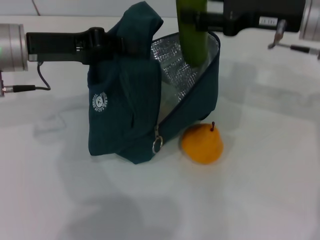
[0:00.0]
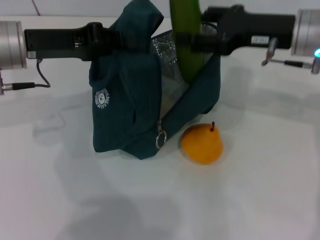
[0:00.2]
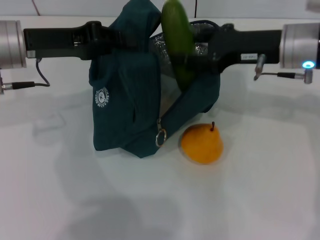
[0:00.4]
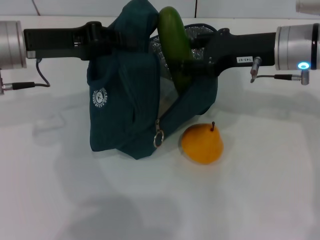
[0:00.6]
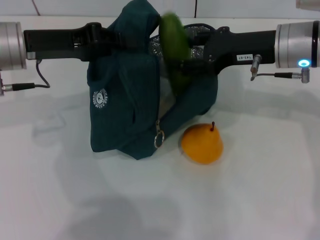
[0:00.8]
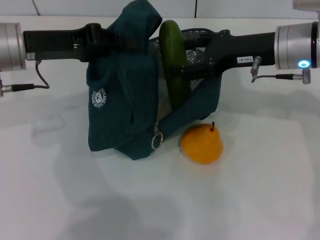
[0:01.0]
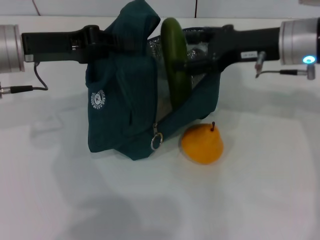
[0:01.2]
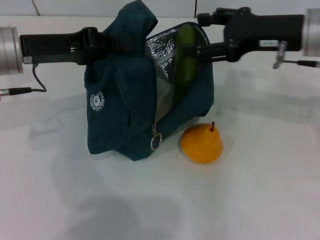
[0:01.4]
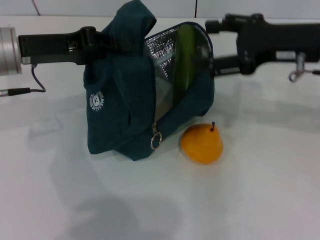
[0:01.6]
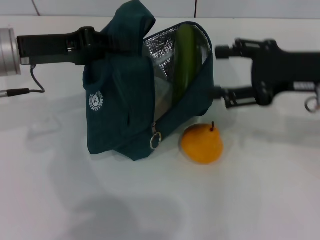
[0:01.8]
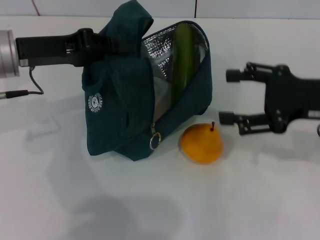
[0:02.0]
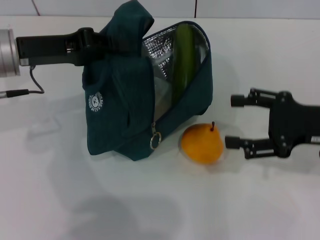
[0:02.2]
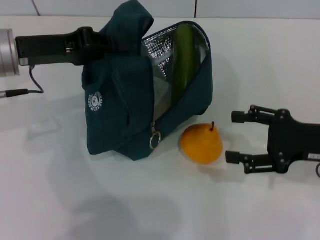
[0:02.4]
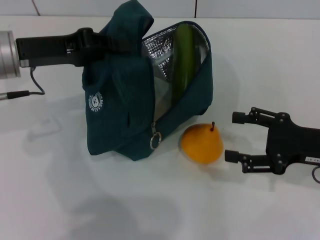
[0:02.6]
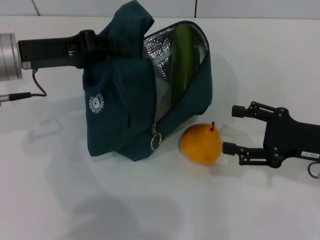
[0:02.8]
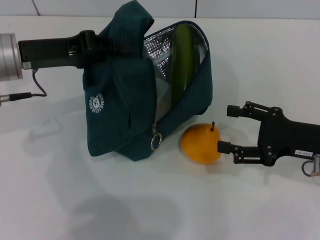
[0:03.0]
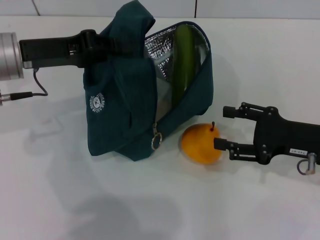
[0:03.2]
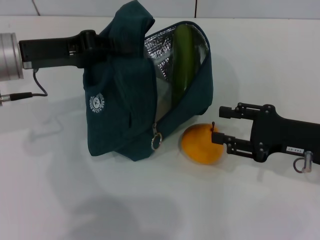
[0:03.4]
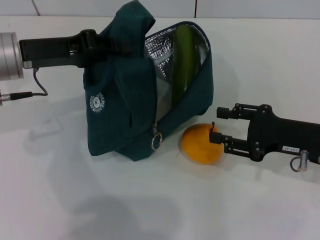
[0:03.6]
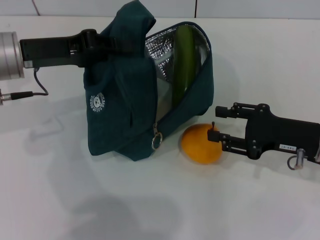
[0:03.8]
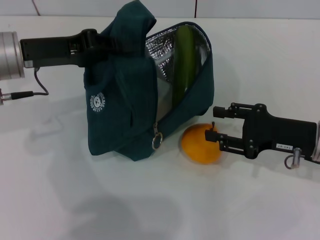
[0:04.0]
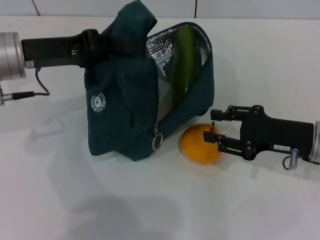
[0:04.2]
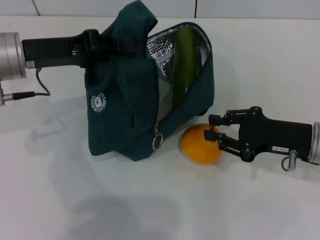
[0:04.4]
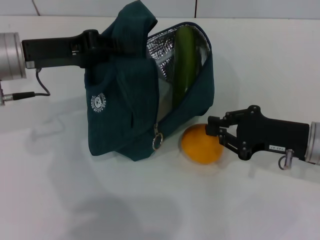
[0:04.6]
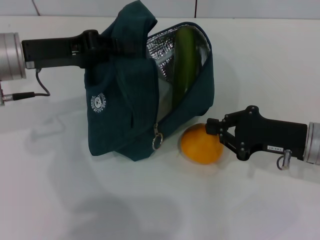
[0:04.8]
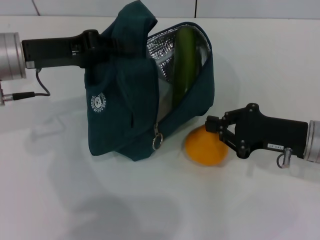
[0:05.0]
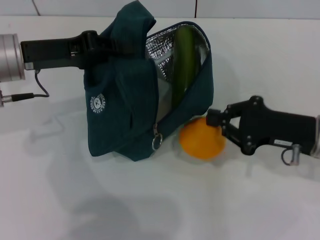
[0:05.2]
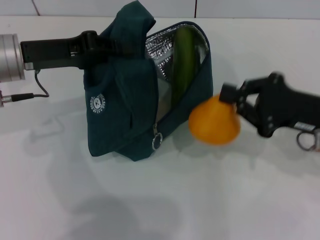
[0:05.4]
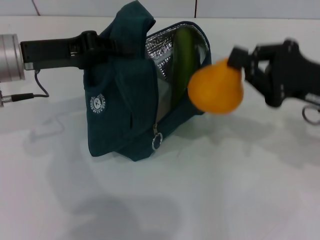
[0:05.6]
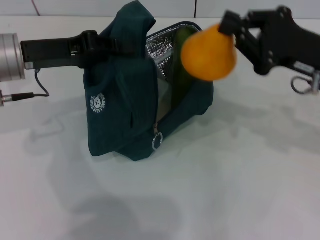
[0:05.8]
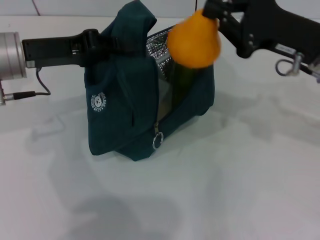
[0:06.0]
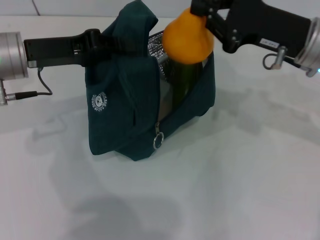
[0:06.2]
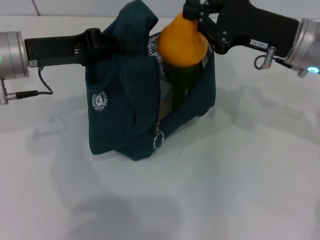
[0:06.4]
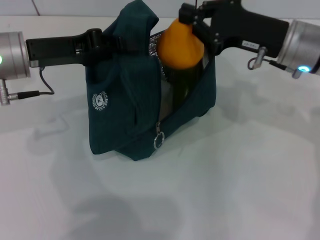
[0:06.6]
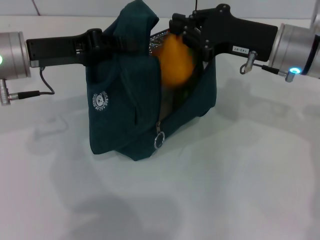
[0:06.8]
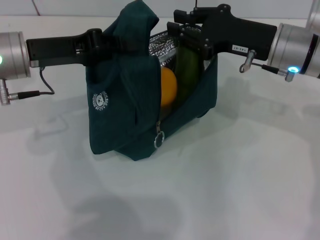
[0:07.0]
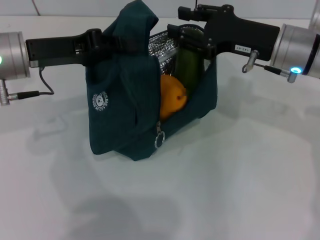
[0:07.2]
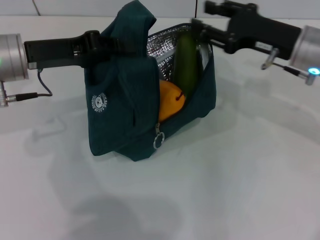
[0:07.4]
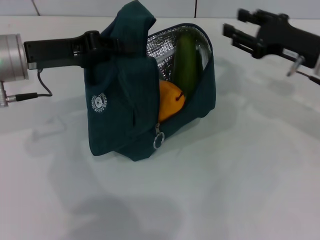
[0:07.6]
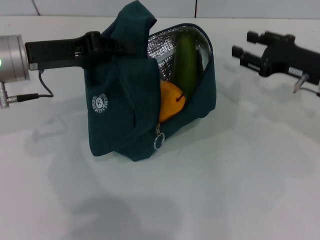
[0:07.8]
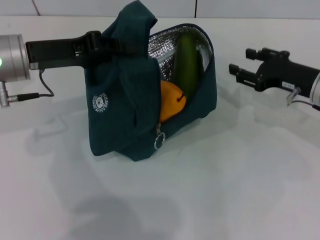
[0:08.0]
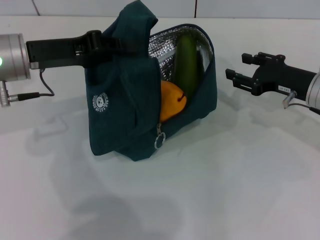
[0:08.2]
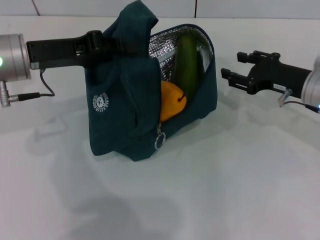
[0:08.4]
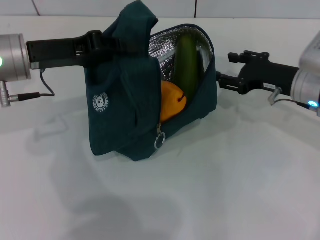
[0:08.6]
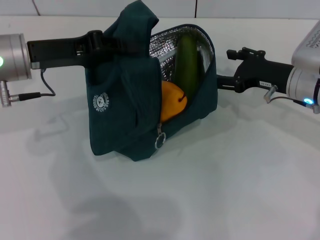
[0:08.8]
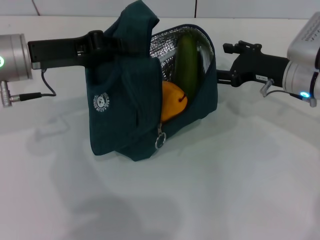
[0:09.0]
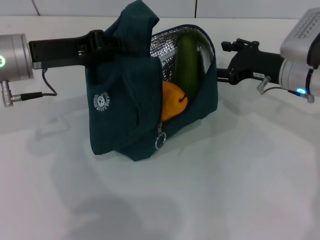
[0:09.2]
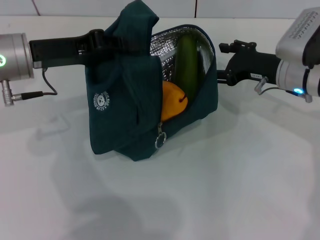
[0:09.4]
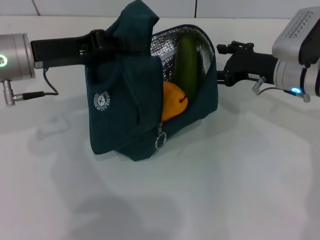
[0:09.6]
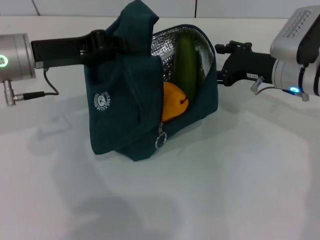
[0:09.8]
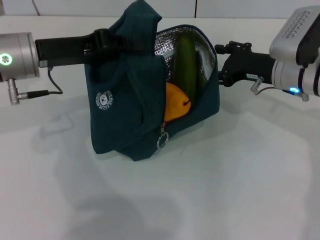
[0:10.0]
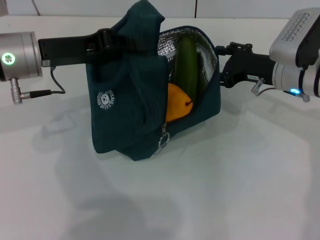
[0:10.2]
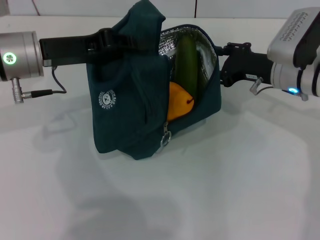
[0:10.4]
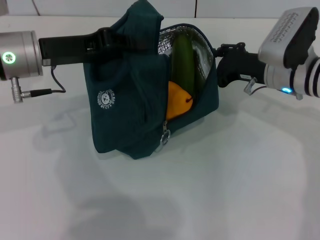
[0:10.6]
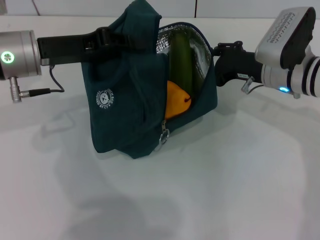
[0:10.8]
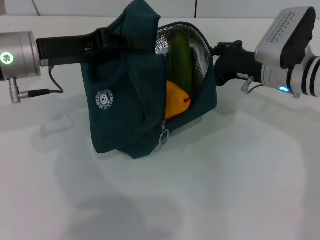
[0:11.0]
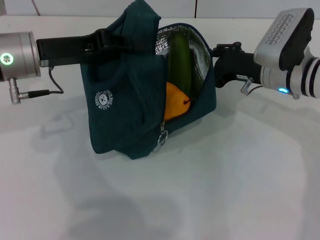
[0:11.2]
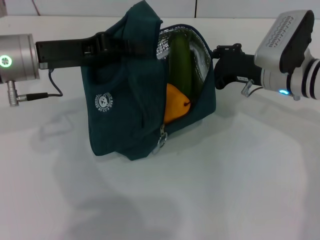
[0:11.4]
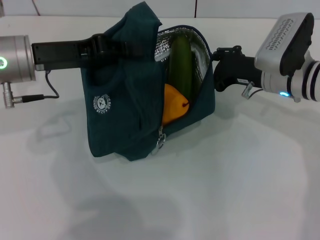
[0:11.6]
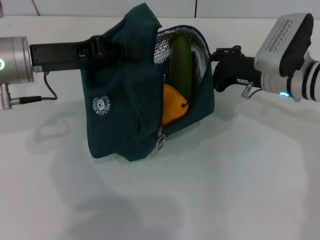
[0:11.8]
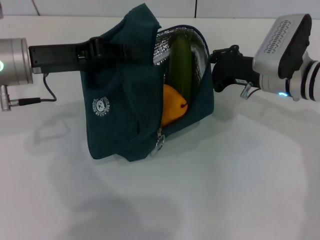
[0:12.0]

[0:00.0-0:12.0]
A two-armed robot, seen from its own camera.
Step, 0:01.8 to 0:04.6: Grab the pear with your right hand.
Step, 0:04.8 to 0:07.2: Place the pear into the lunch bag with your right hand.
0:00.0 to 0:01.6: The grippers stay close to where they were, moving slightly.
0:01.6 to 0:03.0: The right gripper shifts approximately 15 cm downward and backward.
0:03.0 to 0:04.4: The right gripper closes.
0:04.4 to 0:06.0: The right gripper is displaced upward and forward by some 10 cm, and closes.
0:06.0 to 0:07.6: The right gripper ends up approximately 5 cm from where it was, and opens up.
0:07.6 to 0:09.0: The grippers move only a little.
0:09.0 to 0:10.4: There are only small adjustments of the grippers.
0:10.4 to 0:12.0: The right gripper closes.

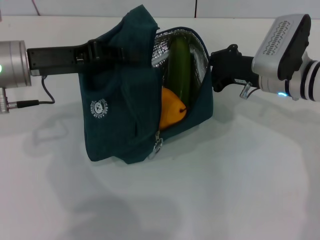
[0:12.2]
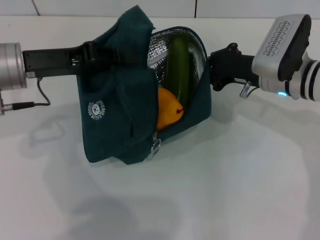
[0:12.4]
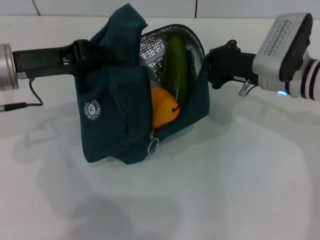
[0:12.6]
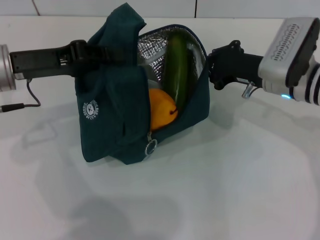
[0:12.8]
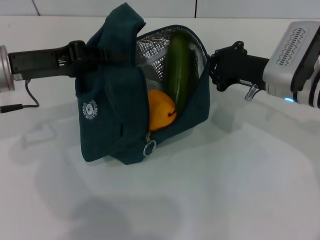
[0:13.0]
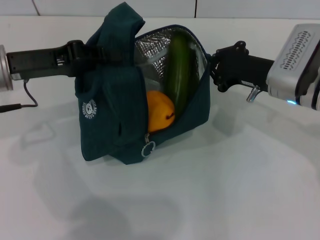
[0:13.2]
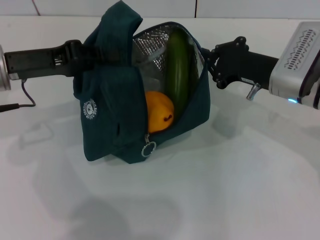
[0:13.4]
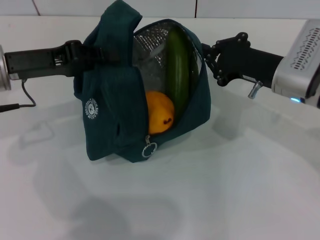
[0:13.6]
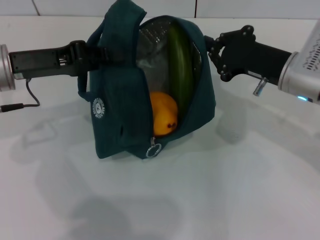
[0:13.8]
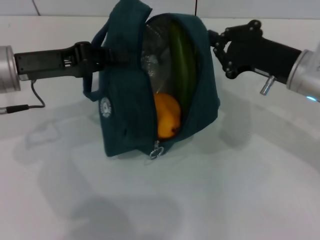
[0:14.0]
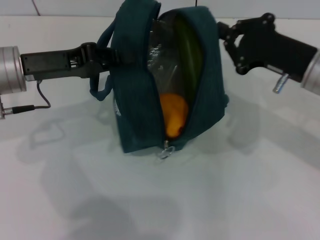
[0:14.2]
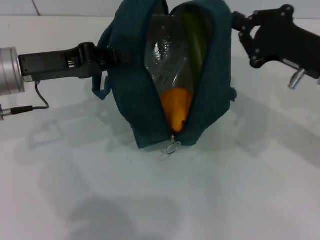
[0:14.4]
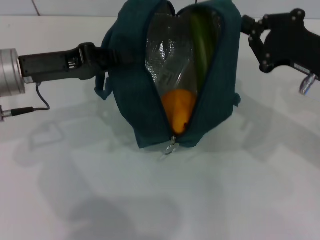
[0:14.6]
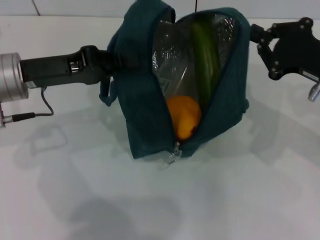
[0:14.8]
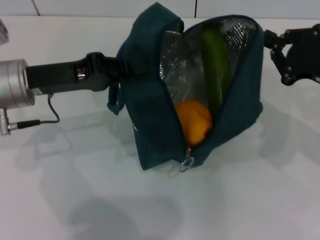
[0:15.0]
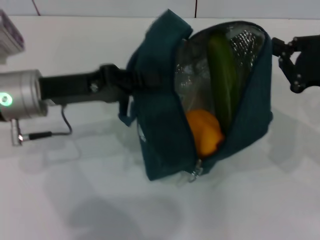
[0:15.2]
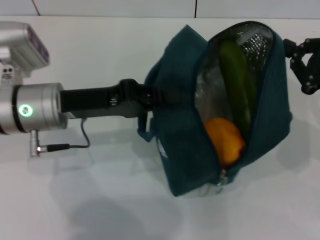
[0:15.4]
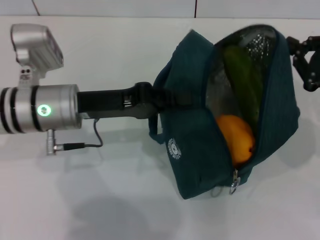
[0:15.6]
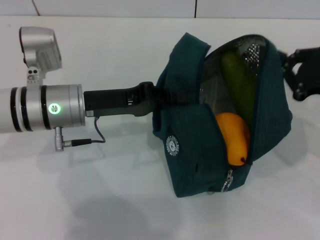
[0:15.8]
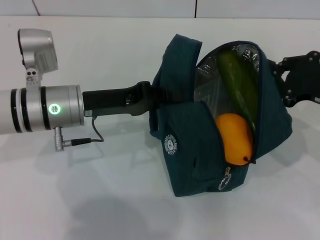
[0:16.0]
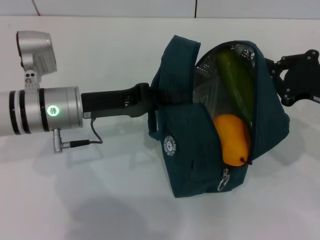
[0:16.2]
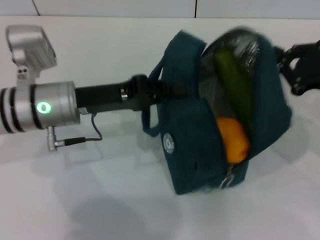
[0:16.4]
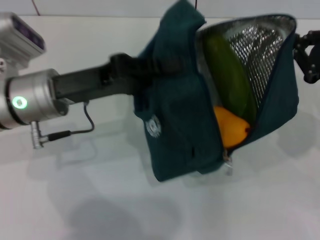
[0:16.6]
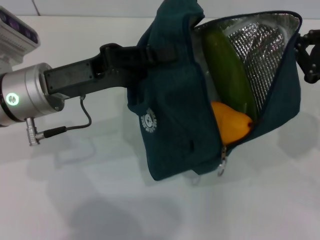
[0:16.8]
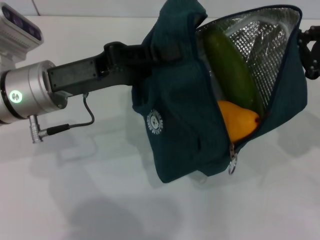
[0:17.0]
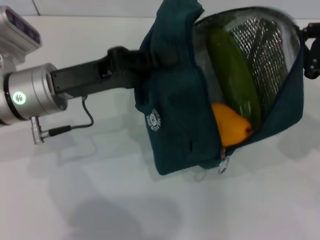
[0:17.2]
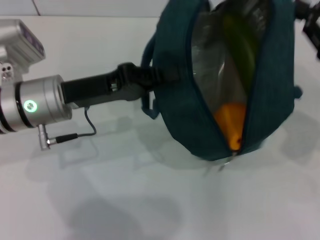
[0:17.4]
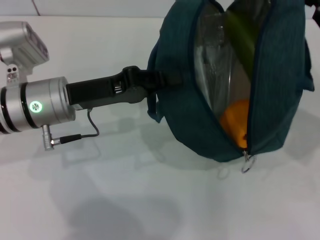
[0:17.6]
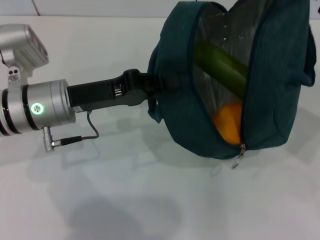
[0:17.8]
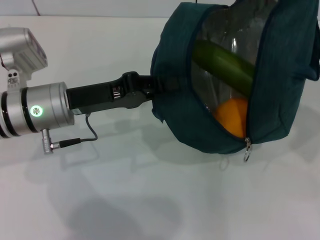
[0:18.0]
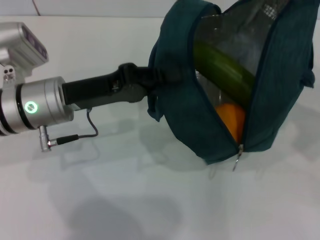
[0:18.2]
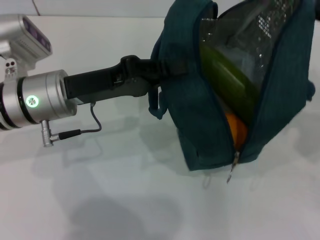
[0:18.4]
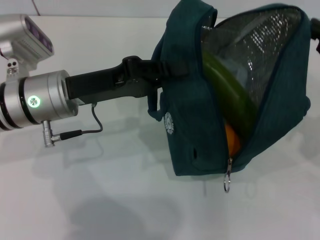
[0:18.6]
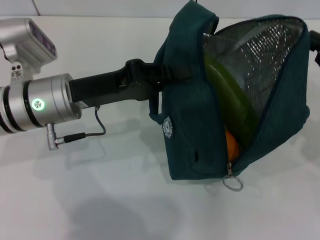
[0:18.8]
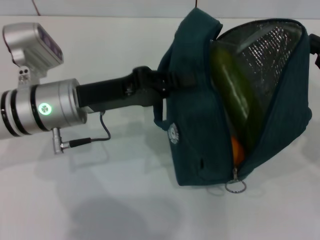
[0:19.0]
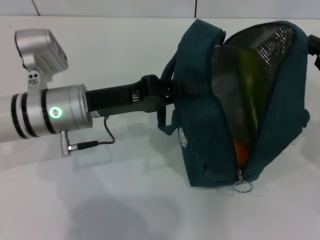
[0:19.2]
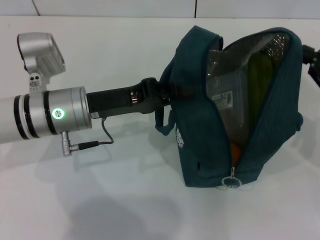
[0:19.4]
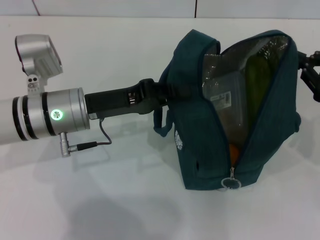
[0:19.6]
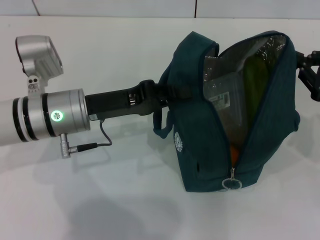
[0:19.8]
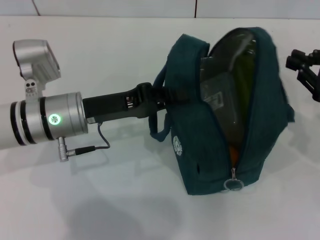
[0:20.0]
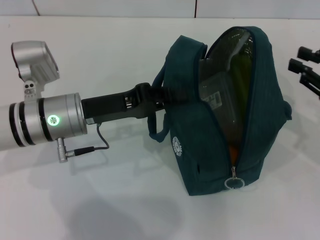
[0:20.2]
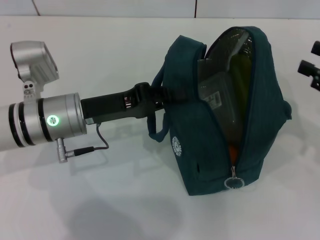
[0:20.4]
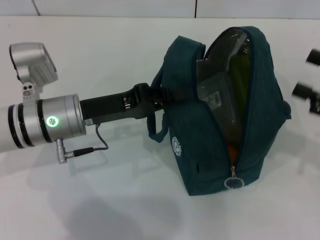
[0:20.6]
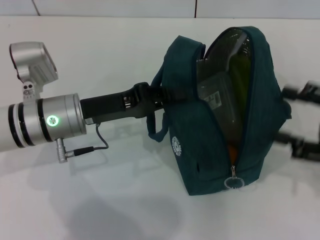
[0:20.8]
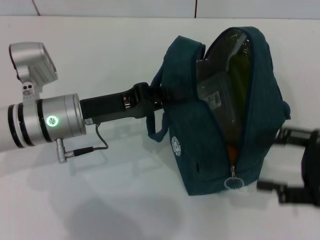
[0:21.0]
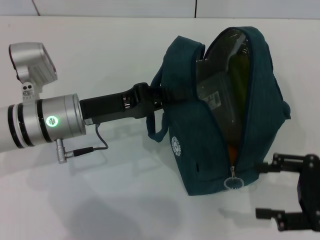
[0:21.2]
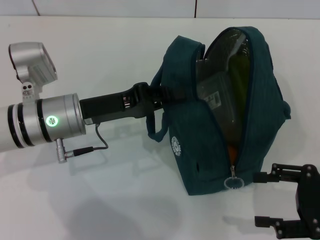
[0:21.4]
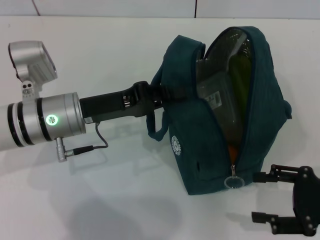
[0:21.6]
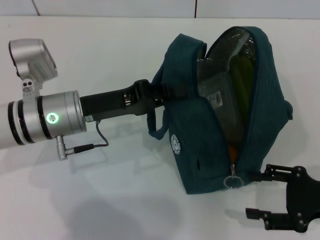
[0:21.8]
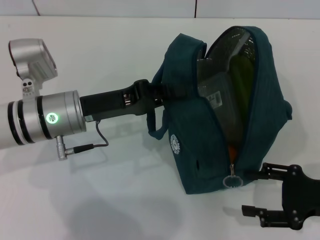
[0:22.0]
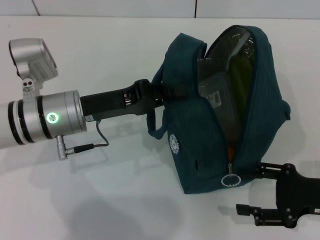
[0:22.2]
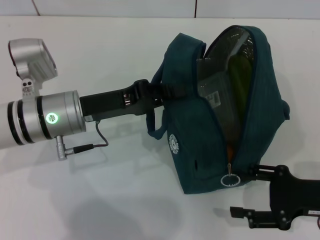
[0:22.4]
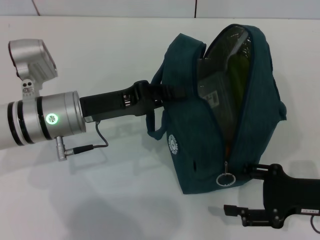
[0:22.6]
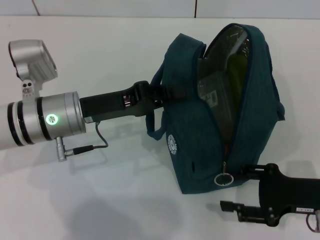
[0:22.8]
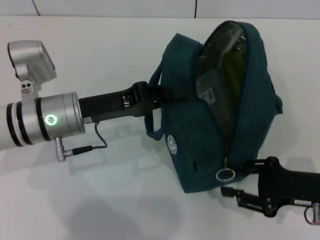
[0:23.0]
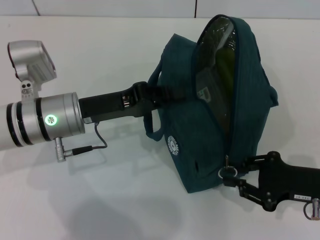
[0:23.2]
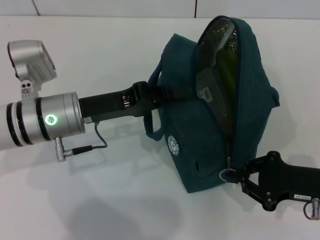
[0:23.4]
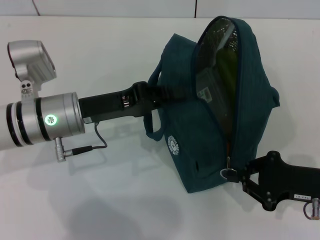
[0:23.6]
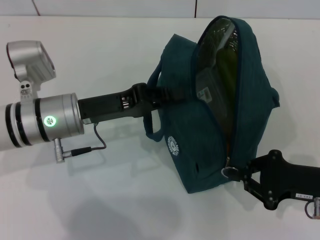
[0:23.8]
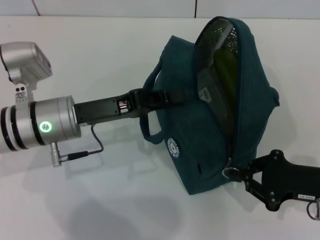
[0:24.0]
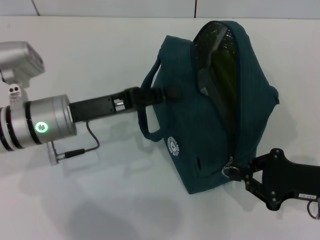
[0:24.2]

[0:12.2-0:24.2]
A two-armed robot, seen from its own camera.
Step, 0:12.2 to 0:19.8: Hold the lunch bag with your right hand.
0:12.2 to 0:13.8: The right gripper ends up approximately 5 cm from where it was.
0:13.8 to 0:15.2: The right gripper shifts about 10 cm to the right and backward.
0:16.6 to 0:18.2: The right gripper moves upward, some 5 cm.
0:18.2 to 0:19.8: The right gripper shifts about 5 cm downward.
0:19.8 to 0:21.2: The right gripper heads backward, covering approximately 10 cm, and opens up.
0:21.2 to 0:22.6: The right gripper travels downward by some 5 cm.
0:22.6 to 0:24.2: The right gripper closes.
